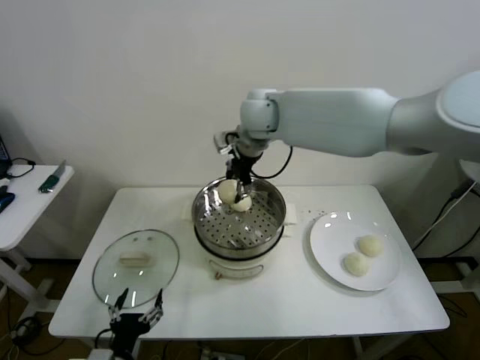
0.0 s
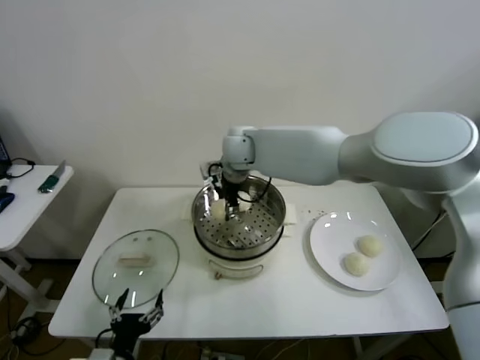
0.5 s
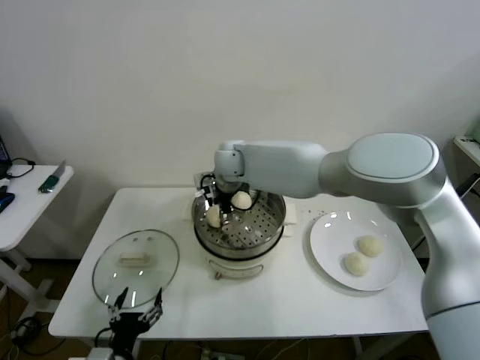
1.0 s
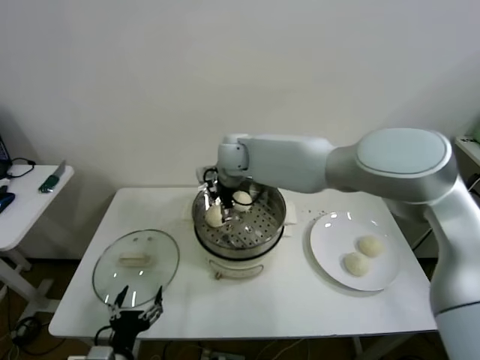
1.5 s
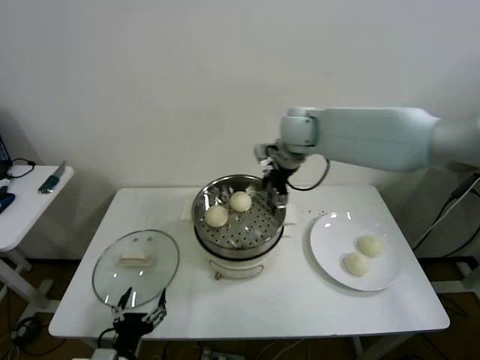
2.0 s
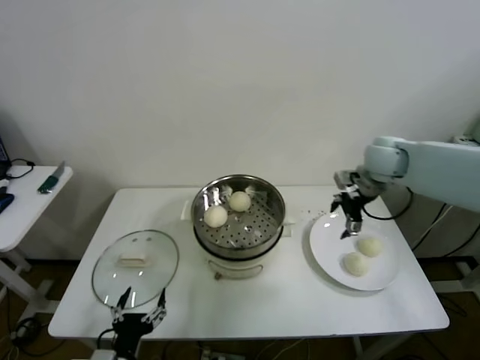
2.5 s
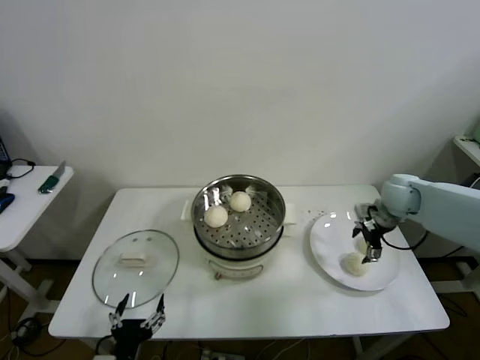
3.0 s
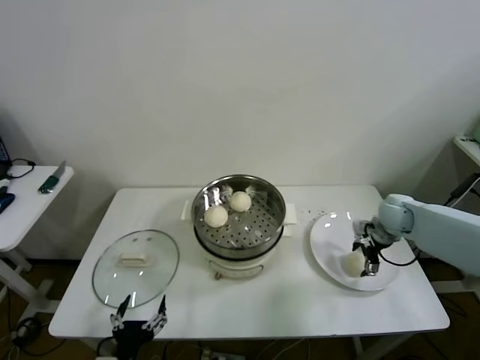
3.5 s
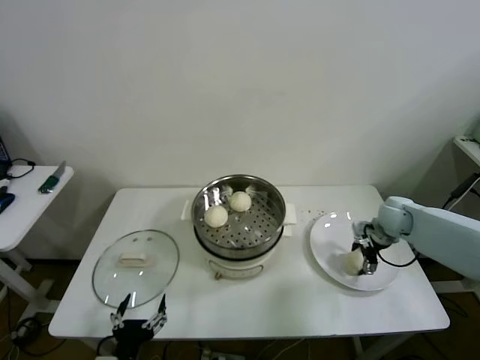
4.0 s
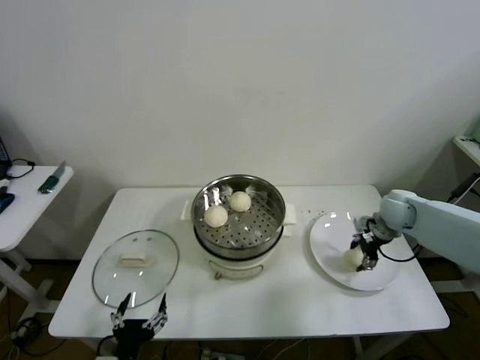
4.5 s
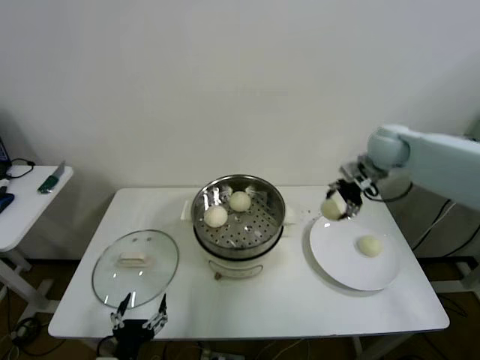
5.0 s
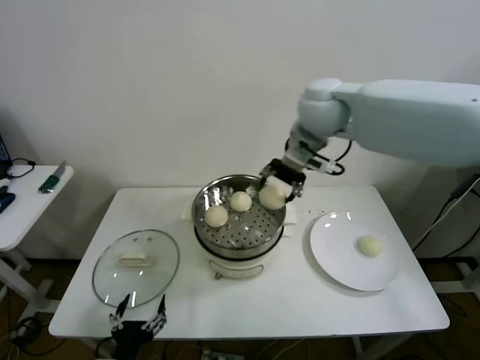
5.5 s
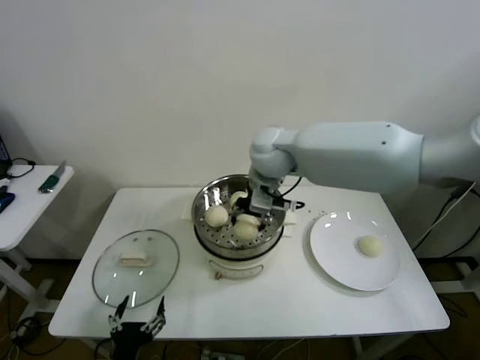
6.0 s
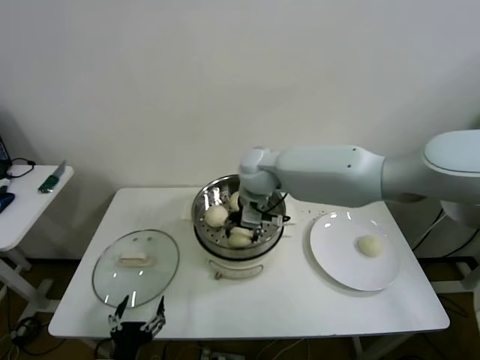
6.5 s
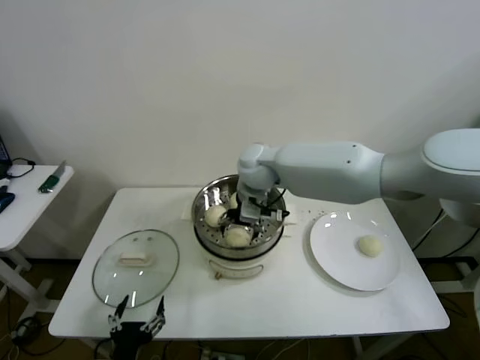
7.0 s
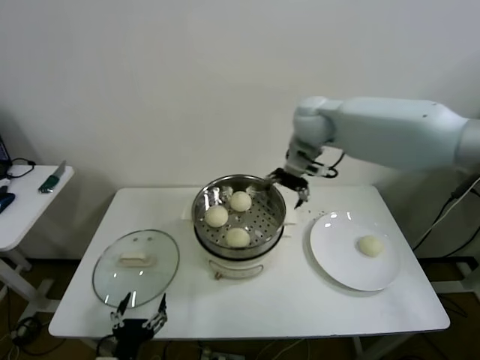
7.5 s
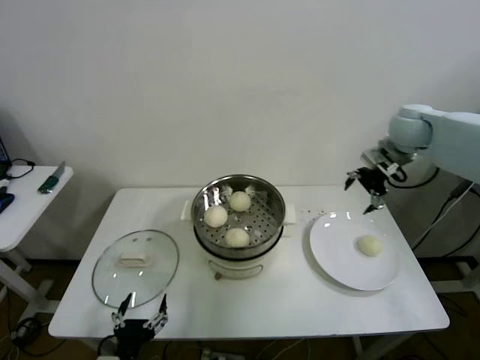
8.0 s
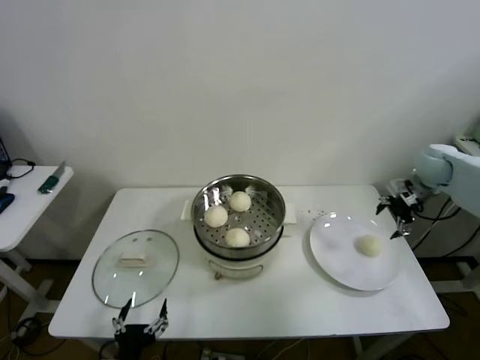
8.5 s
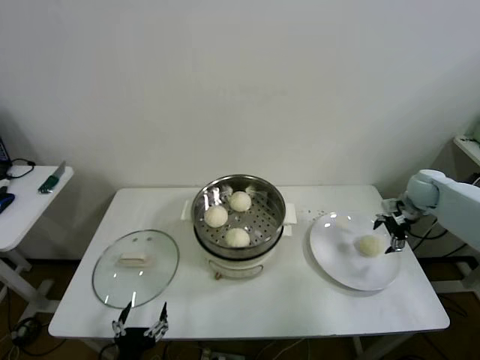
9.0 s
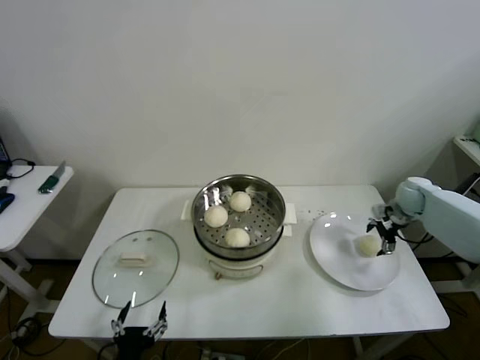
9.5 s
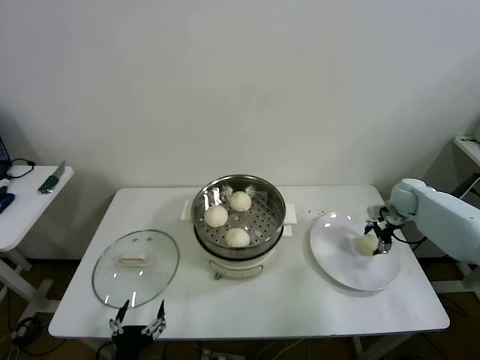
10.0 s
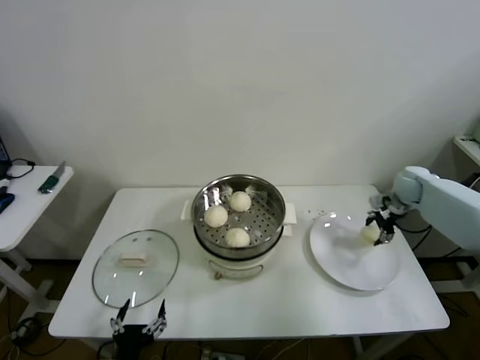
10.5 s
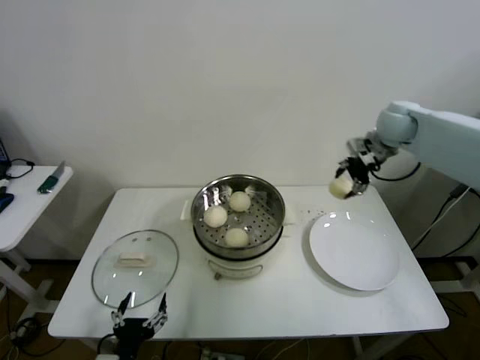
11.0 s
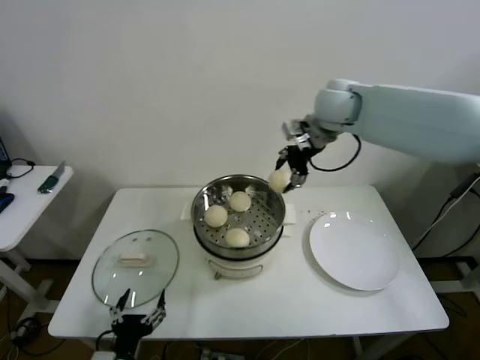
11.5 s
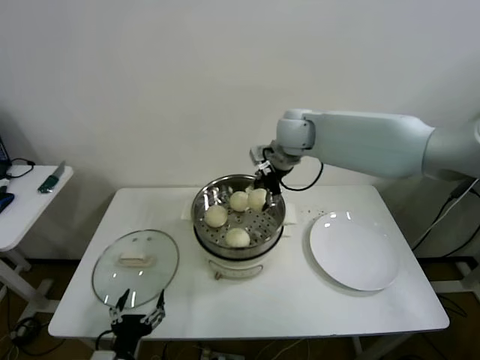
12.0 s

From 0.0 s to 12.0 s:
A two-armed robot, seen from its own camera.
Step, from 1.5 s to 4.0 s: Grasp the baozi in the plate with right gripper.
Step, from 4.5 s to 6.5 s: Place the baozi on the steamer with right gripper.
Step, from 7.0 s to 10.0 s: Grasp the baozi in the plate with right gripper.
From 0.0 s to 2.0 s: The right gripper moves to the right, roughly 5 cm, and opens its fingers.
From 2.0 s to 4.0 s: The right gripper heads to the right and downward, covering about 35 cm.
From 4.0 s to 6.0 s: The right gripper moves to the left and upward, roughly 40 cm, and closes its fingers.
From 6.0 s to 8.0 s: The right gripper is displaced to the right by roughly 30 cm, and opens its fingers.
From 8.0 s to 10.0 s: The right gripper goes roughly 25 cm downward and to the right.
From 10.0 s to 12.0 s: The right gripper is displaced to the left and upward by about 40 cm, and closes.

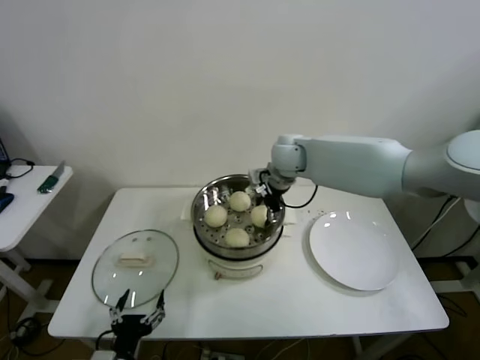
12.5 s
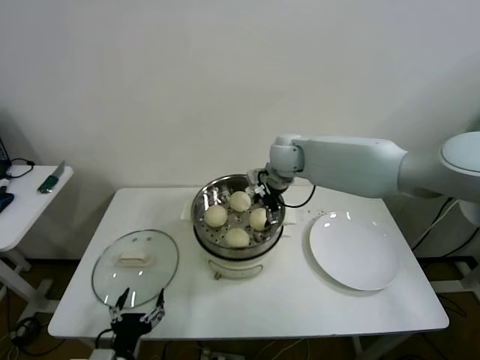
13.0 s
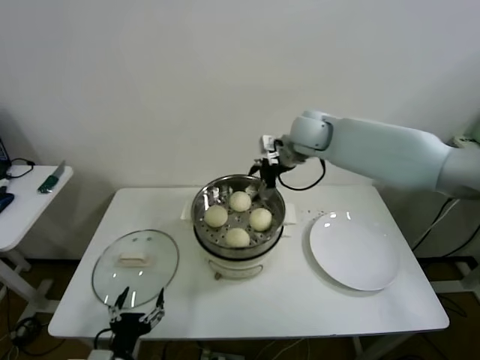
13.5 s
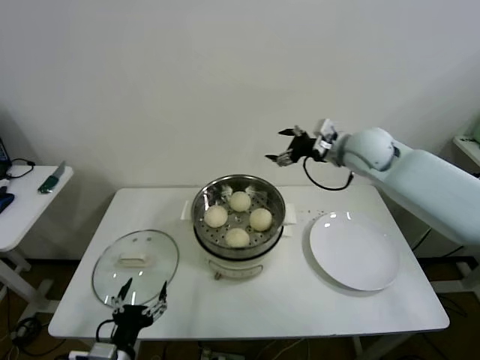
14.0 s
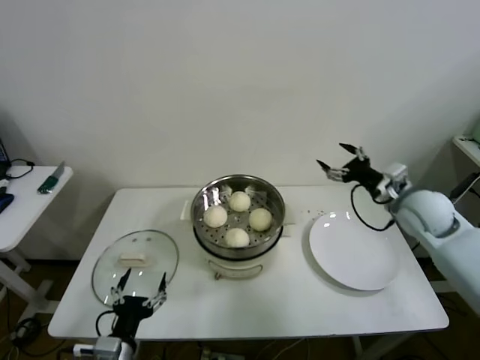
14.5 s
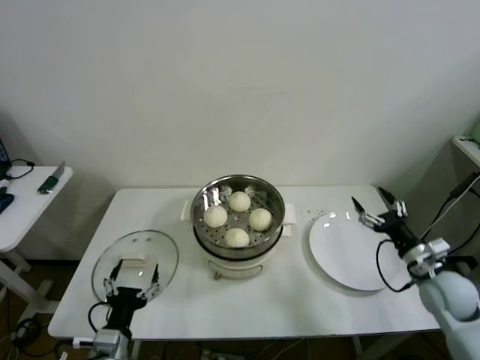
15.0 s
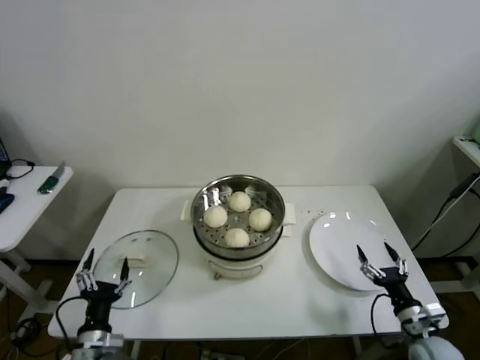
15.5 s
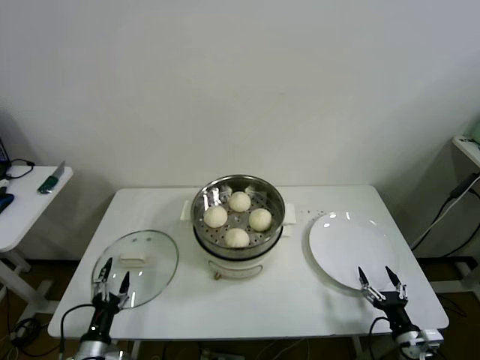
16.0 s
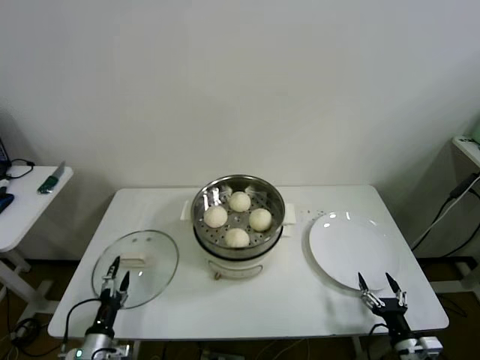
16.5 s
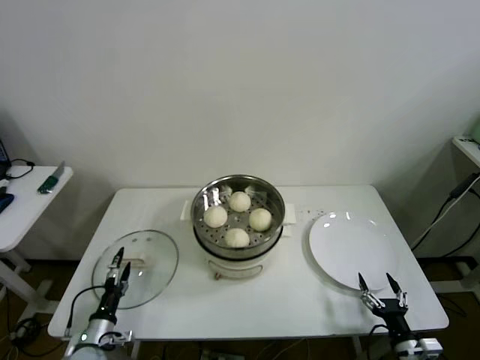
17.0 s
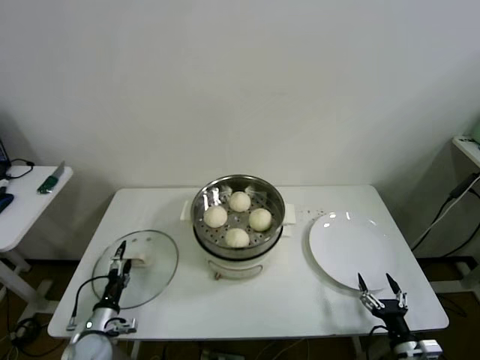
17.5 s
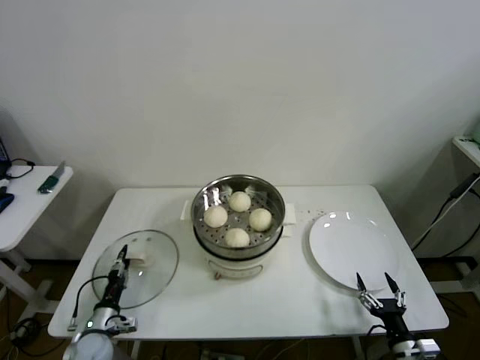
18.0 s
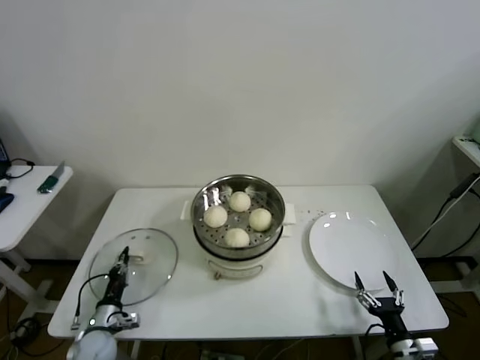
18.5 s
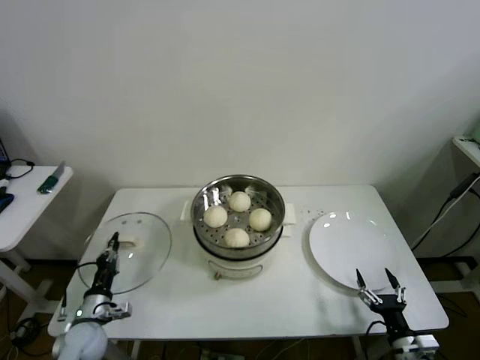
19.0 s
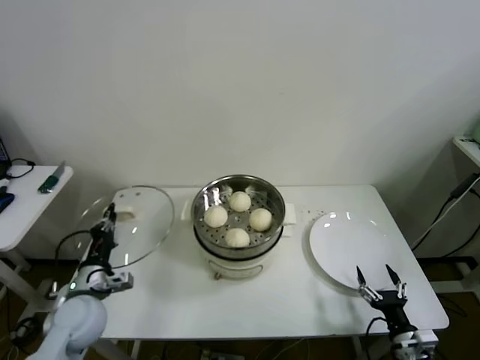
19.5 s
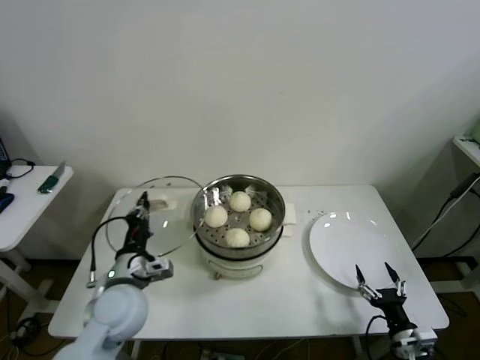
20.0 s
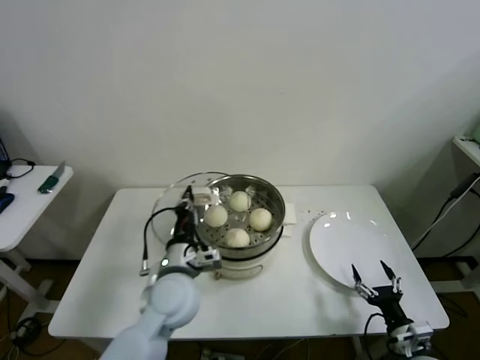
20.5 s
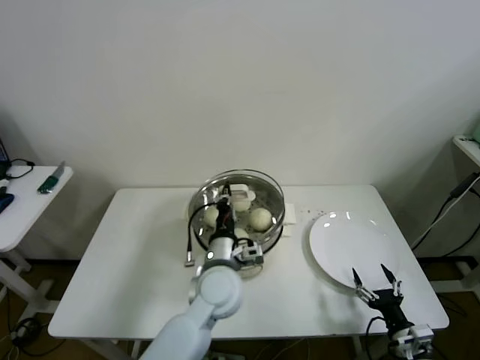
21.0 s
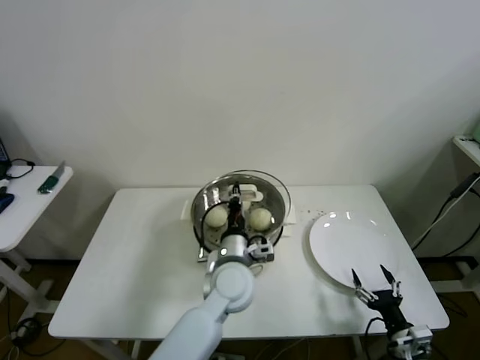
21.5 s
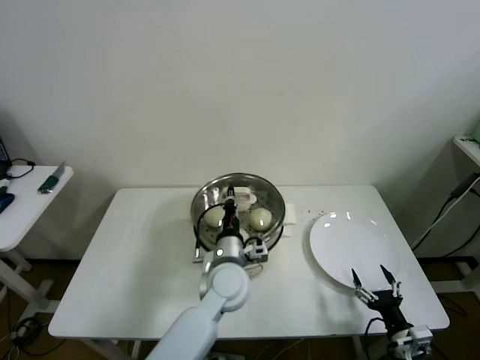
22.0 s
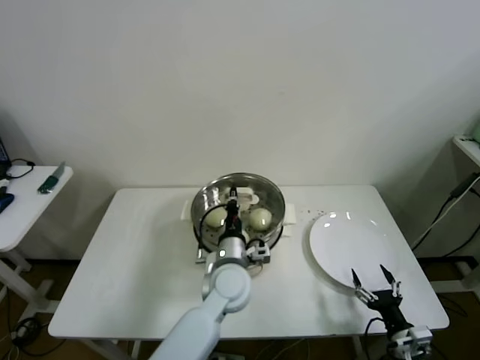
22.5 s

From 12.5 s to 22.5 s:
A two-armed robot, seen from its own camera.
Step, from 13.0 s to 18.0 s: Grasp the pot lid with left gripper.
From 12.5 s to 14.5 s: The right gripper heads to the right and backward, covering about 30 cm, and opens.
From 14.5 s to 16.5 s: The left gripper heads downward and to the left, covering about 15 cm, while the right gripper heads downward and backward, covering approximately 40 cm.
From 16.5 s to 18.5 s: The left gripper heads forward, covering about 10 cm, and closes.
From 18.5 s to 20.5 s: The left gripper moves upward and to the right, about 30 cm.
From 20.5 s to 22.5 s: The left gripper shifts approximately 10 cm to the right.

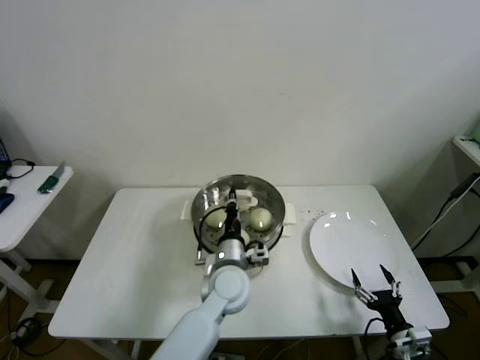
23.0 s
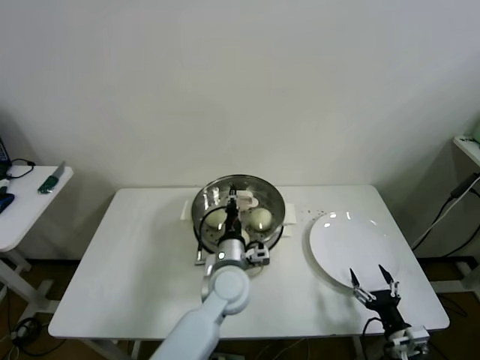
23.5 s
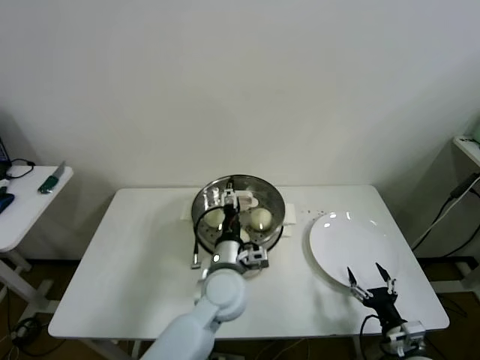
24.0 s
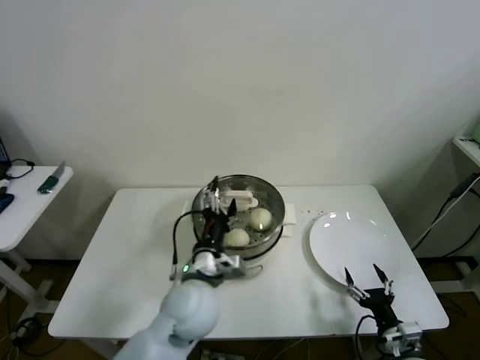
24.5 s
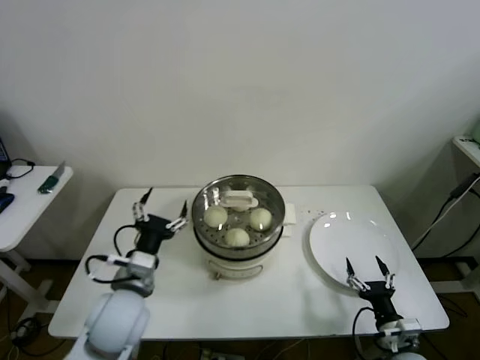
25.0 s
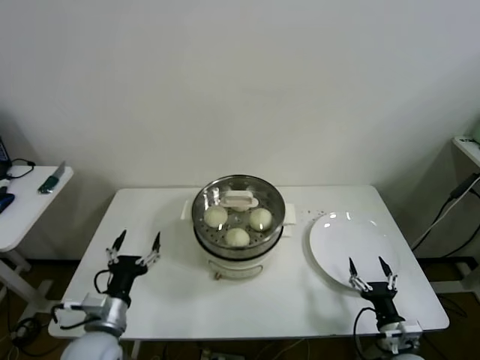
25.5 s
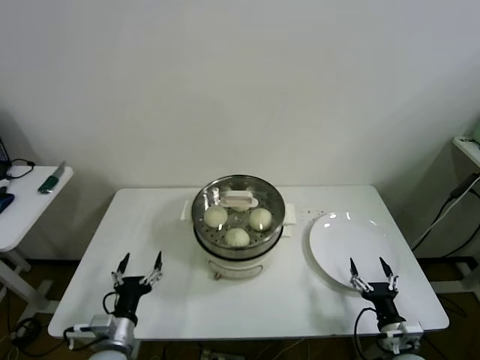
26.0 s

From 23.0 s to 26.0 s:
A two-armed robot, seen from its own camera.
From 23.0 s to 24.5 s: The left gripper travels upward and backward by approximately 10 cm, and opens its fingers.
From 24.5 s to 26.0 s: The left gripper travels to the left, downward and backward by approximately 25 cm.
